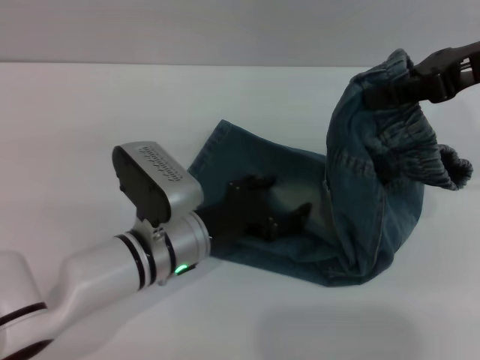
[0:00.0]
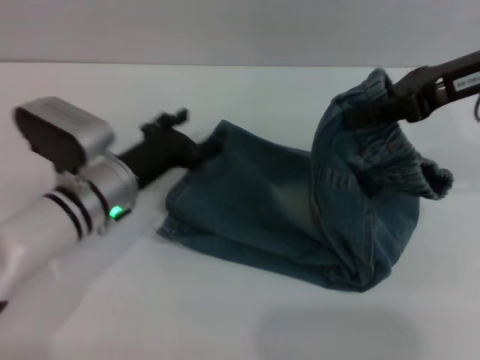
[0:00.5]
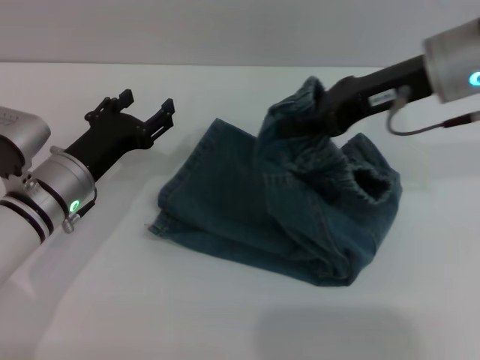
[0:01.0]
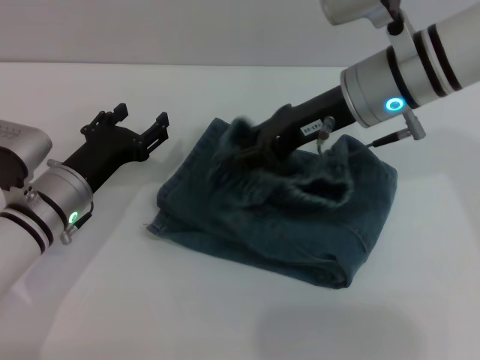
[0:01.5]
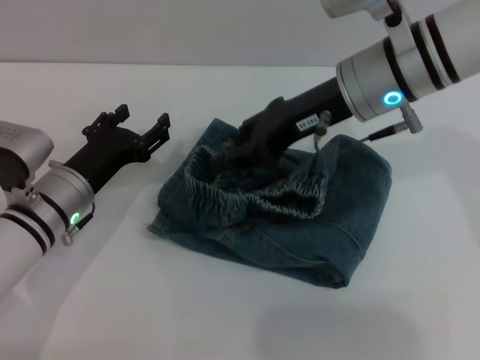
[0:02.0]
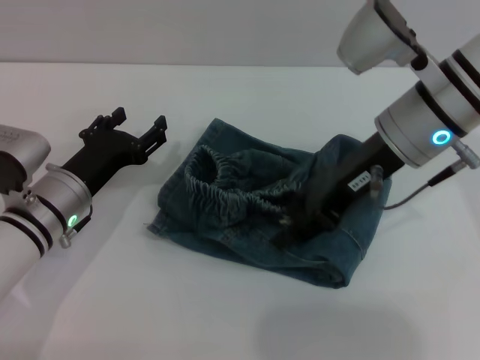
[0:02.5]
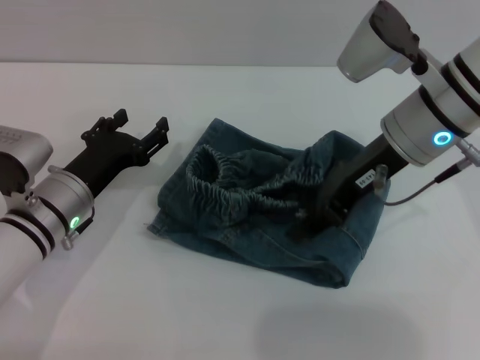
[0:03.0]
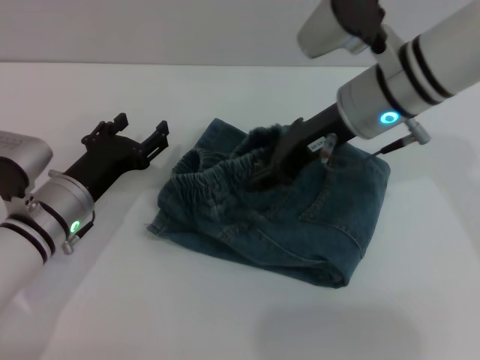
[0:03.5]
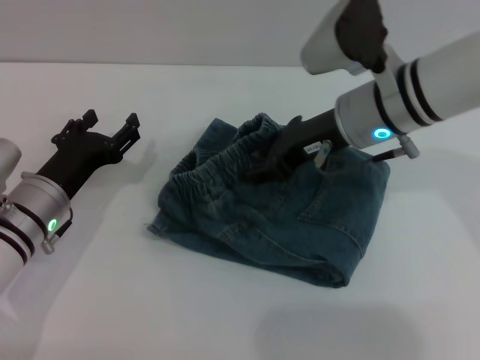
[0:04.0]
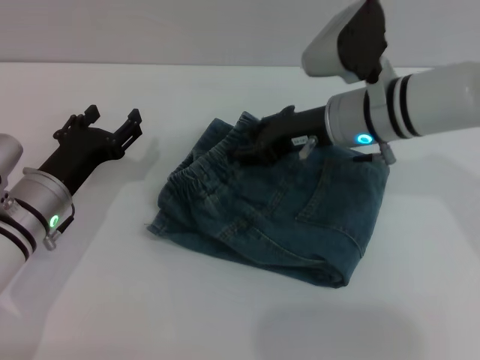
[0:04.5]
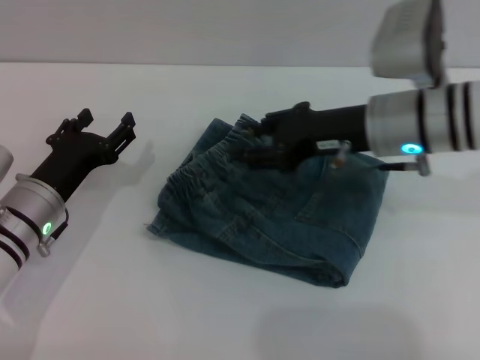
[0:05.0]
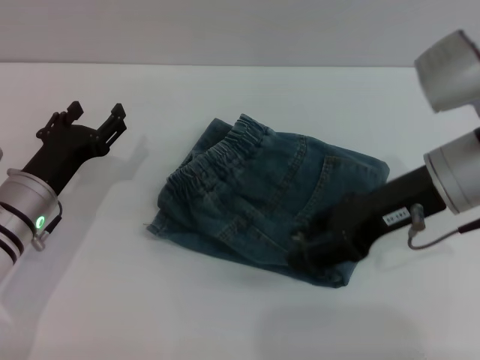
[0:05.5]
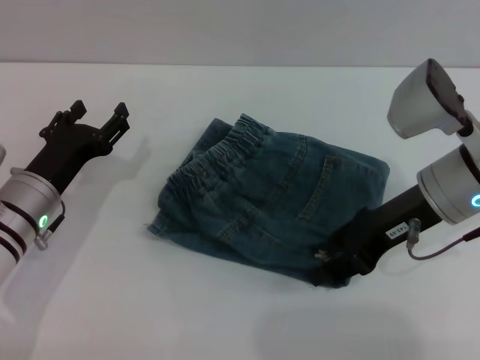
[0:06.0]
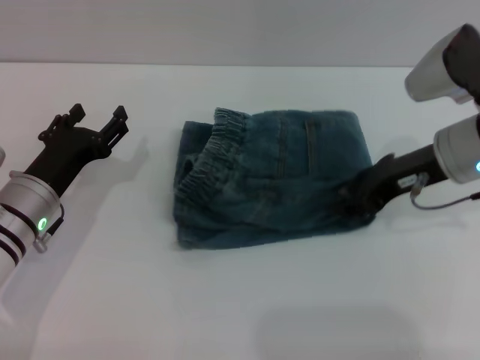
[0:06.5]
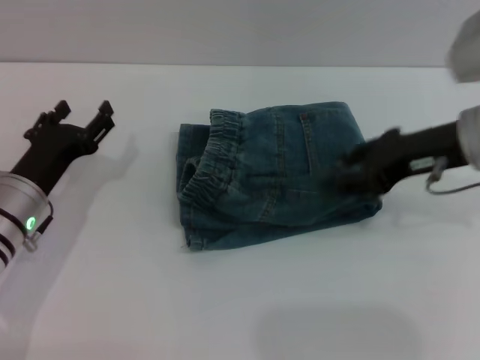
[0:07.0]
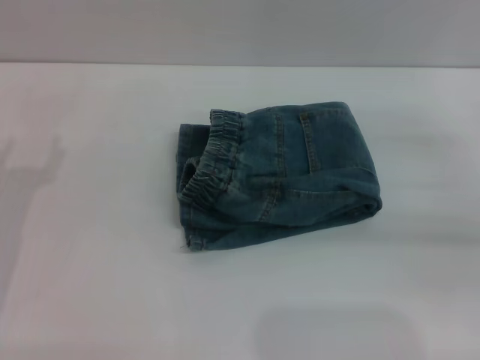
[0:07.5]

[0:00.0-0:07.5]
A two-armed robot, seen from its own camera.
Step, 0:00.0 to 0:05.0: Fold the pants from right to left with the right gripper.
Step, 0:05.5 to 0:07.0: Place the folded trousers onto the center area with the right grippers.
0:00.0 to 0:02.0: The right gripper is displaced to the left and downward by about 15 cm, and opens its fingers, while the left gripper moves to the left, some 10 cm.
0:04.0 to 0:05.5: The right gripper goes roughly 10 cm backward and to the right.
0:05.5 to 0:07.5: The right gripper heads to the right, covering about 20 cm. The left gripper shifts approximately 5 cm to the left.
